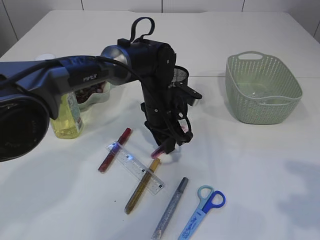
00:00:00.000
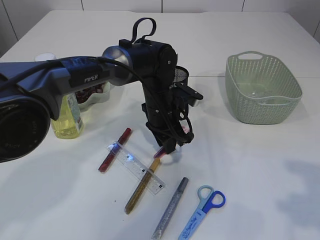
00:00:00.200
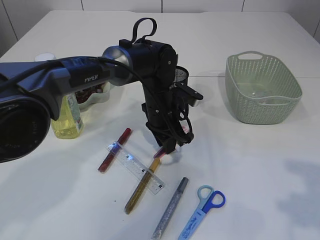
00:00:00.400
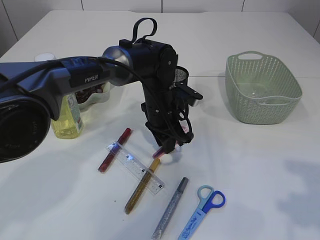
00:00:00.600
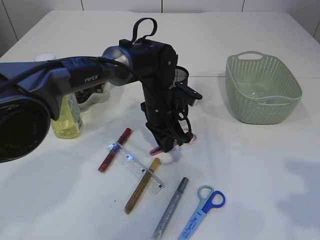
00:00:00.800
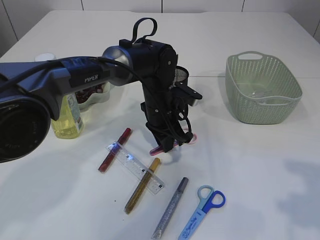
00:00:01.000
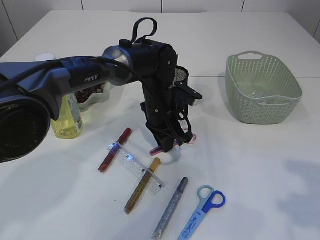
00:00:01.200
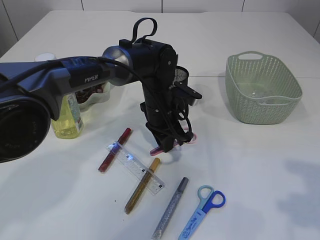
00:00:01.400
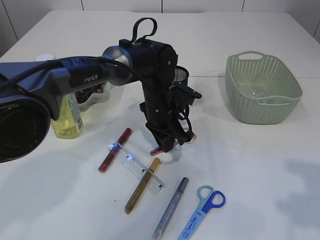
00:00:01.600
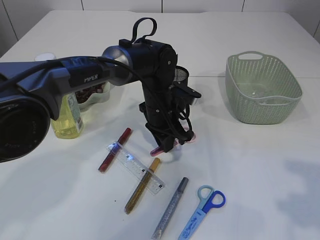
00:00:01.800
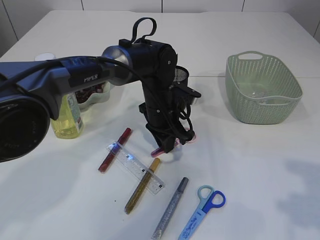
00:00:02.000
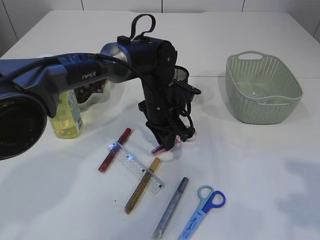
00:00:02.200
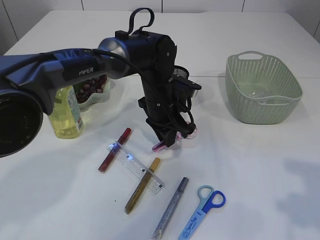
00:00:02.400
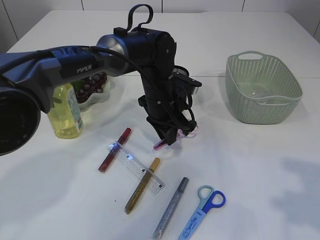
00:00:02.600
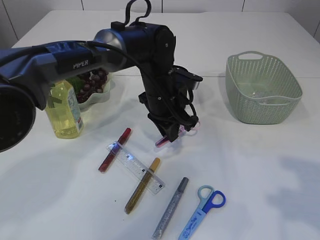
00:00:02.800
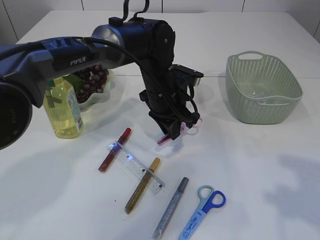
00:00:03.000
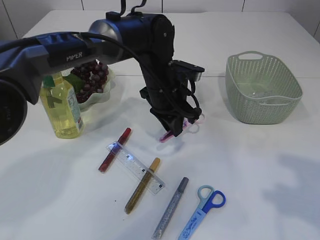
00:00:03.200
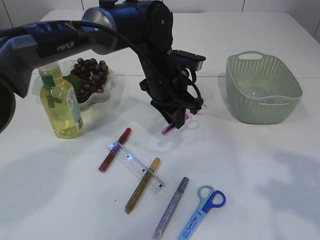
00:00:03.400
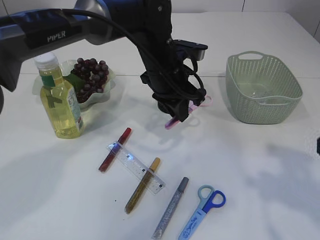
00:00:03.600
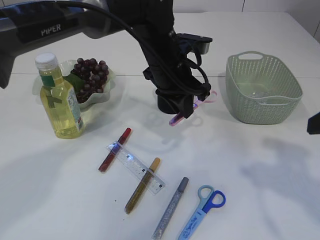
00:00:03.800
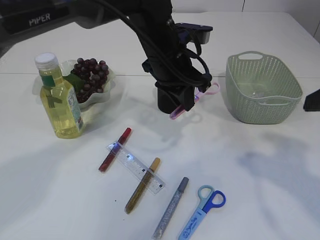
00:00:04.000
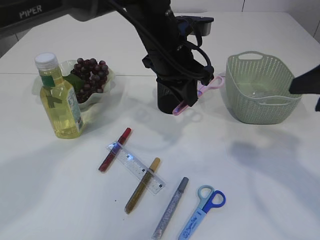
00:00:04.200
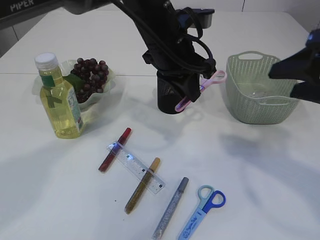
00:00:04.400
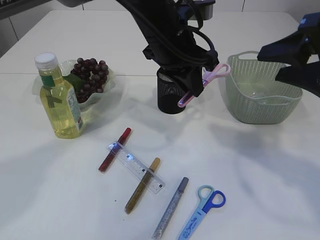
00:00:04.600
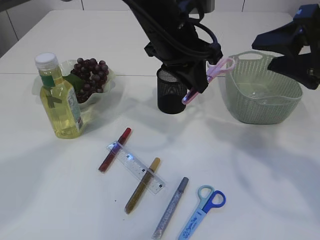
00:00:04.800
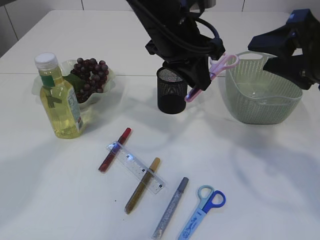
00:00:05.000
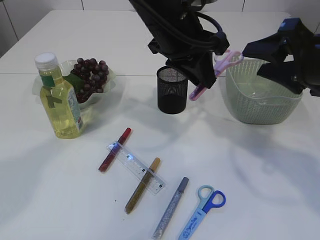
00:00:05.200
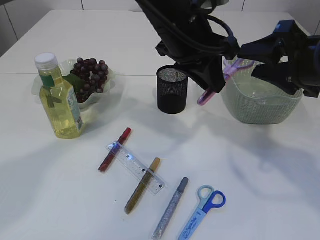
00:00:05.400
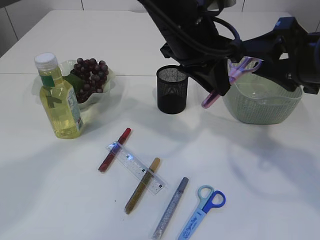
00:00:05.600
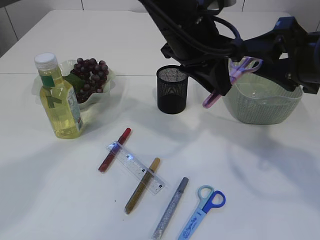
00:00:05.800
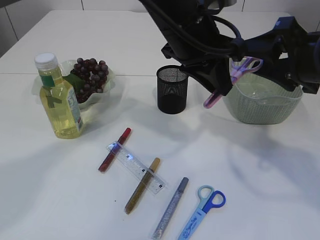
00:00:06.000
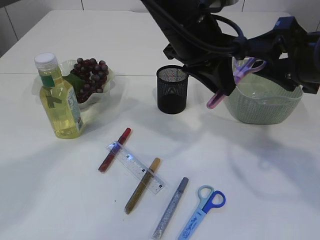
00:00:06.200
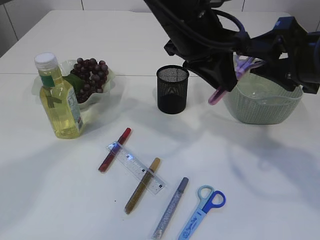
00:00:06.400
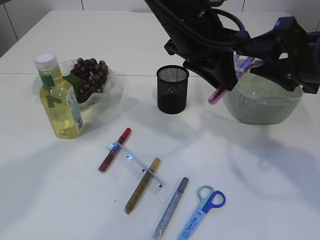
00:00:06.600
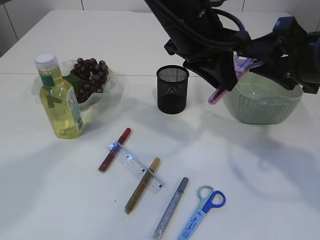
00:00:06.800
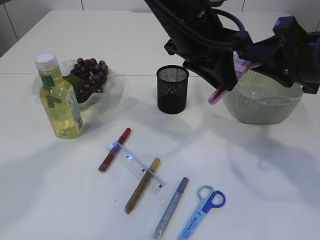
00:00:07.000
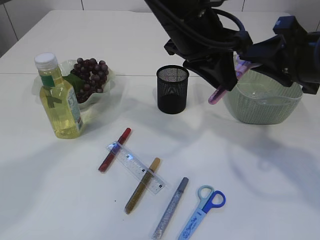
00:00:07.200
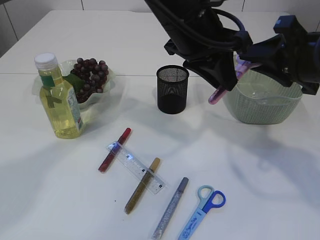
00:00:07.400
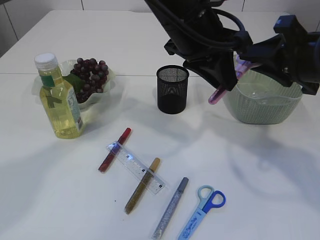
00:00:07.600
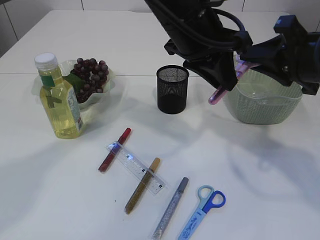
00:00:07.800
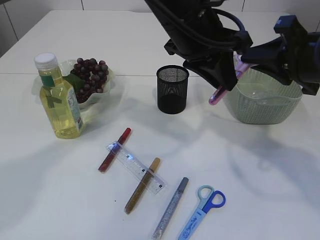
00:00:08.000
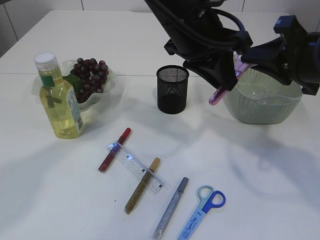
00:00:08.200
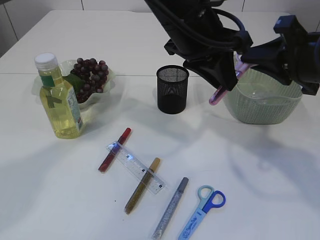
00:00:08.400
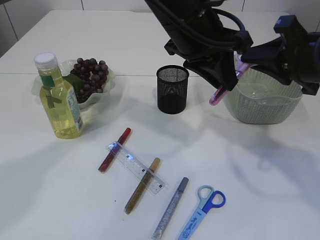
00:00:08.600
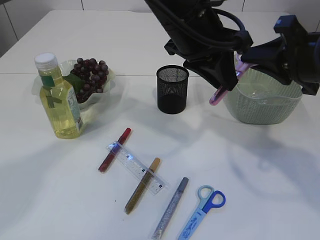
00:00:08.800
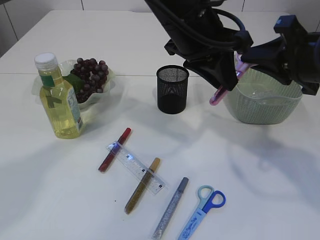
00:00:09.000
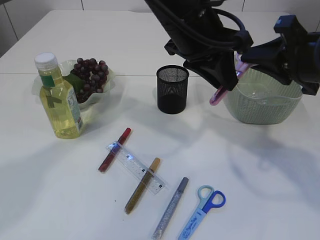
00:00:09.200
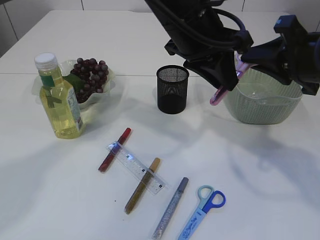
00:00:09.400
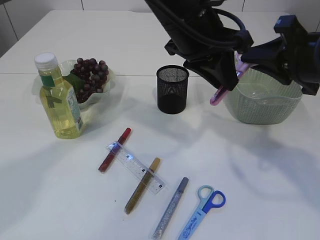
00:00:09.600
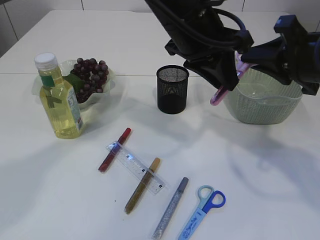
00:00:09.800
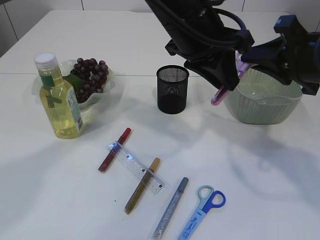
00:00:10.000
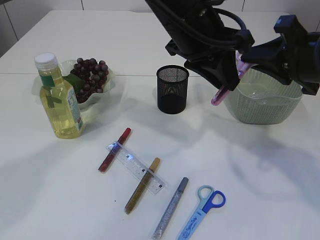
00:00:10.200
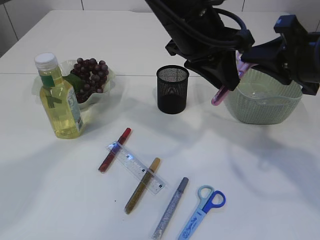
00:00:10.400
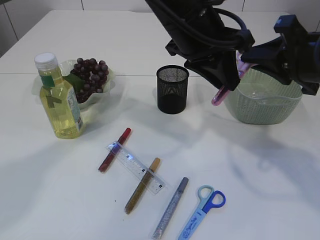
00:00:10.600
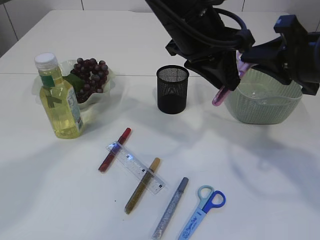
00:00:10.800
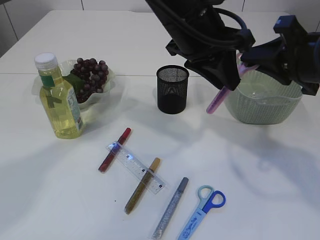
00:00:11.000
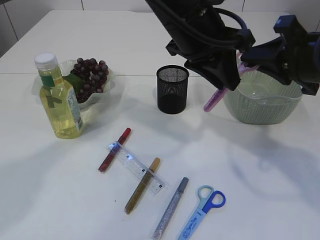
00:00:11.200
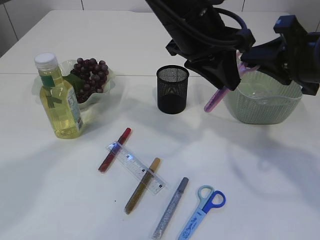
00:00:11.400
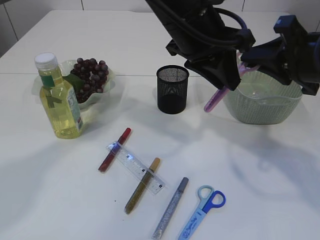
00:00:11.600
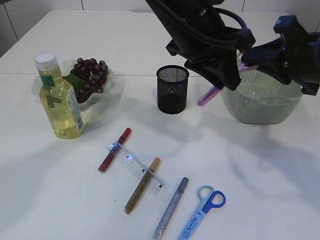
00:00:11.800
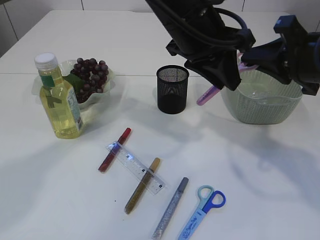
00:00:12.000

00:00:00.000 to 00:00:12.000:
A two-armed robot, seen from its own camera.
Step, 00:00:00.000 to 00:00:03.800: pick up the pink scissors.
00:00:00.000 to 00:00:01.600: Neither gripper changes place.
00:00:01.600 to 00:00:03.000: There are only small adjustments of the grippers.
00:00:03.000 to 00:00:04.400: The left gripper shifts about 10 cm upward. The right gripper is displaced forward by about 10 cm.
00:00:04.400 to 00:00:06.000: The left gripper changes place by about 5 cm. Meanwhile the right gripper shifts approximately 5 cm forward.
00:00:06.000 to 00:00:07.600: The right gripper closes up.
00:00:07.600 to 00:00:12.000: The two grippers keep their place.

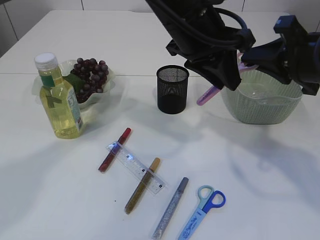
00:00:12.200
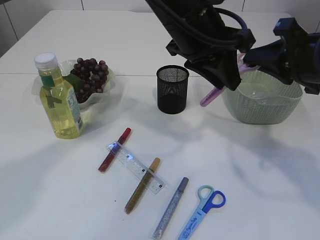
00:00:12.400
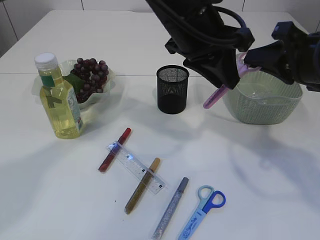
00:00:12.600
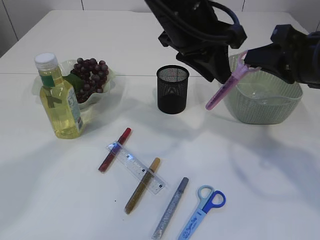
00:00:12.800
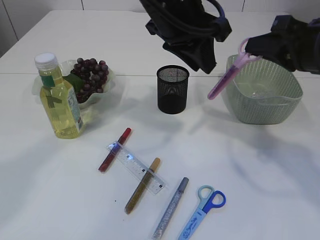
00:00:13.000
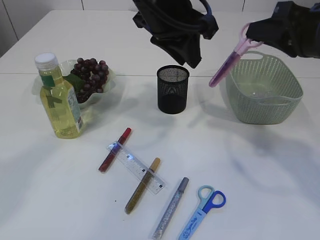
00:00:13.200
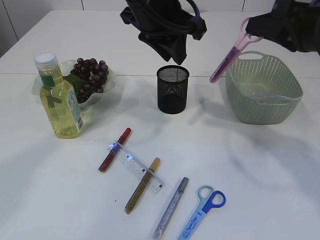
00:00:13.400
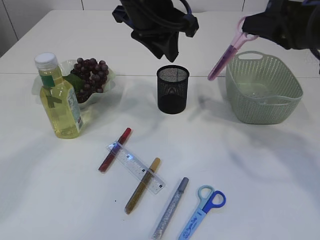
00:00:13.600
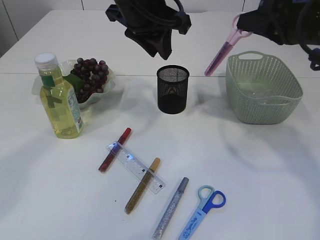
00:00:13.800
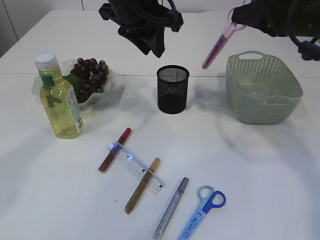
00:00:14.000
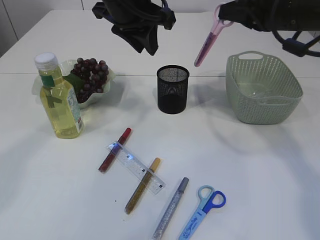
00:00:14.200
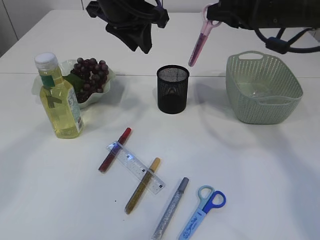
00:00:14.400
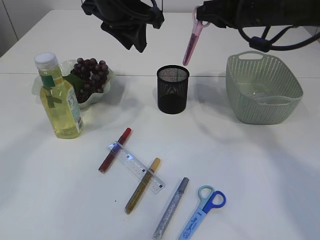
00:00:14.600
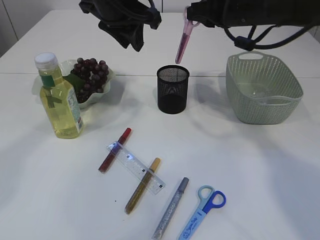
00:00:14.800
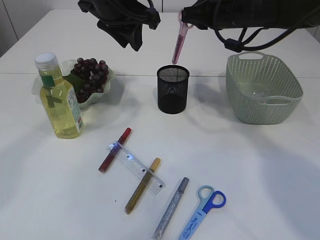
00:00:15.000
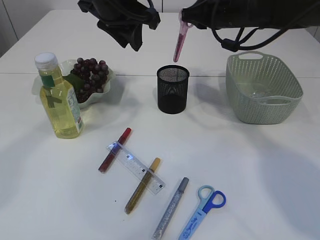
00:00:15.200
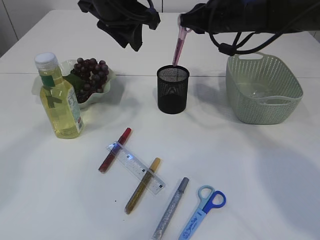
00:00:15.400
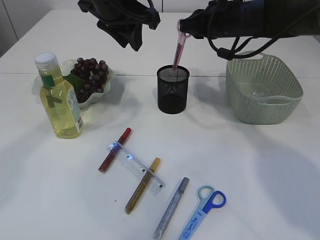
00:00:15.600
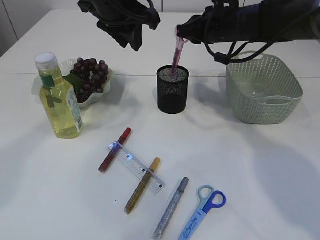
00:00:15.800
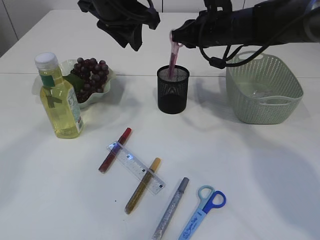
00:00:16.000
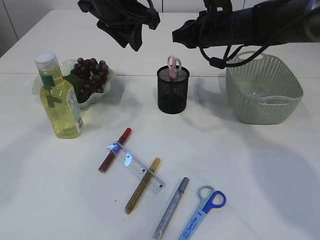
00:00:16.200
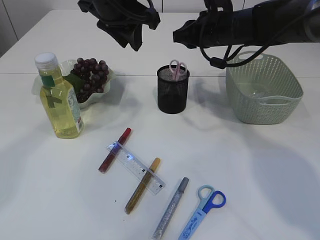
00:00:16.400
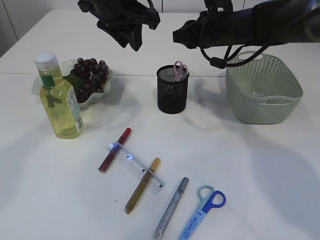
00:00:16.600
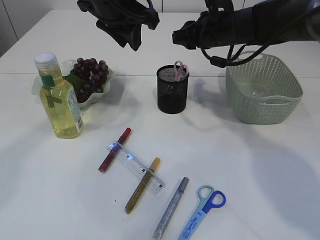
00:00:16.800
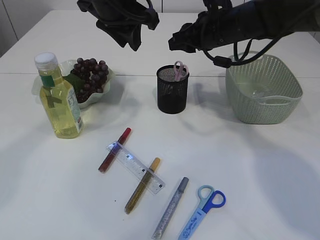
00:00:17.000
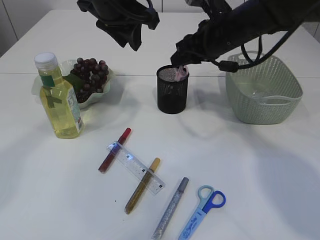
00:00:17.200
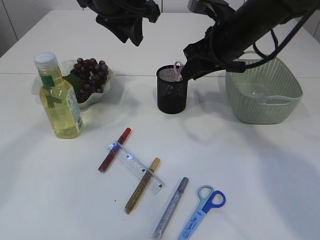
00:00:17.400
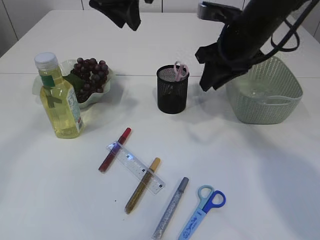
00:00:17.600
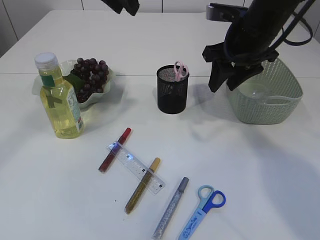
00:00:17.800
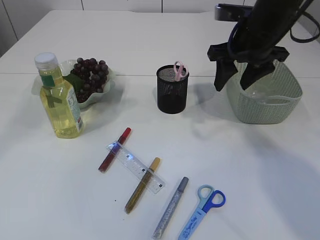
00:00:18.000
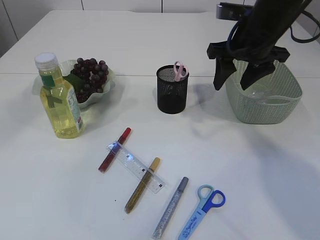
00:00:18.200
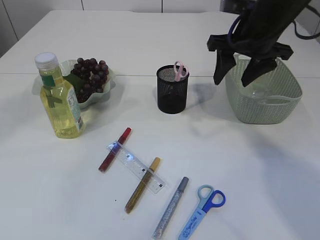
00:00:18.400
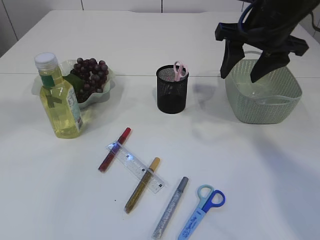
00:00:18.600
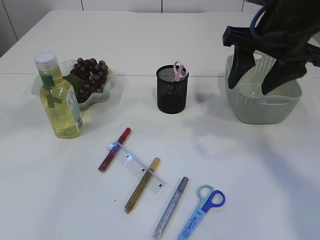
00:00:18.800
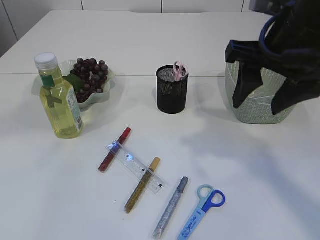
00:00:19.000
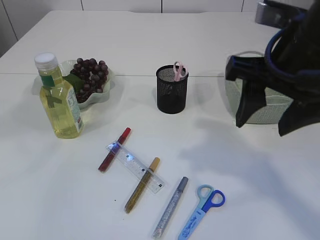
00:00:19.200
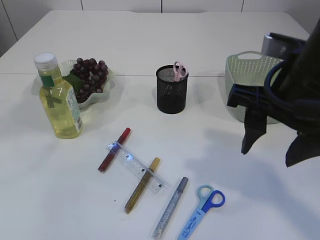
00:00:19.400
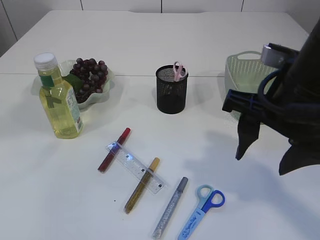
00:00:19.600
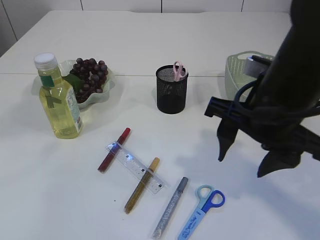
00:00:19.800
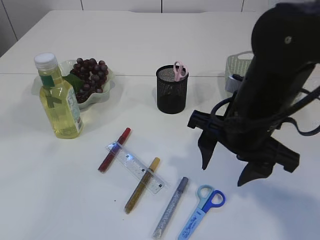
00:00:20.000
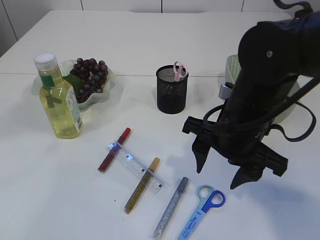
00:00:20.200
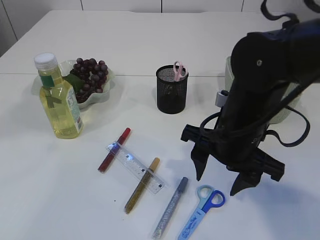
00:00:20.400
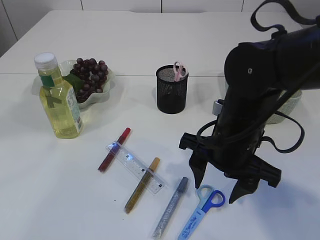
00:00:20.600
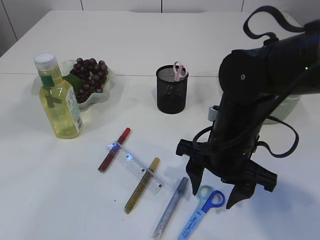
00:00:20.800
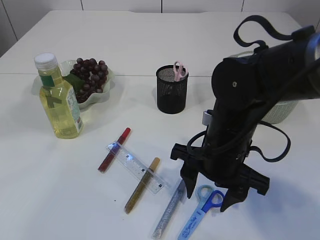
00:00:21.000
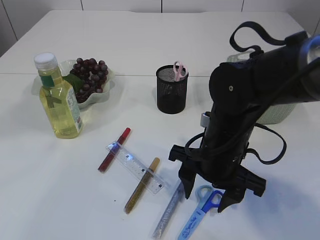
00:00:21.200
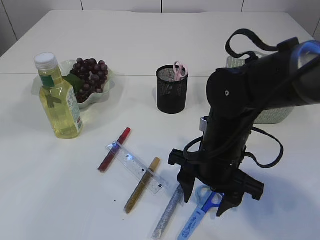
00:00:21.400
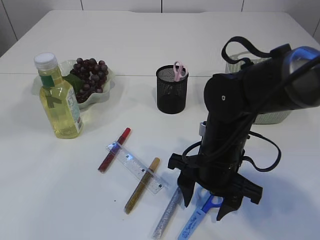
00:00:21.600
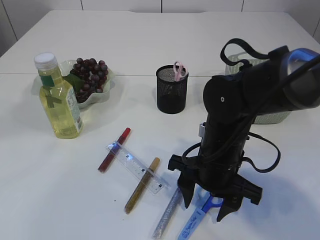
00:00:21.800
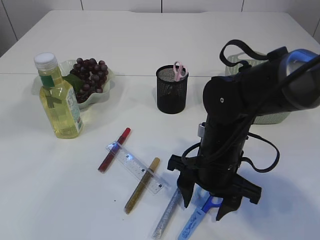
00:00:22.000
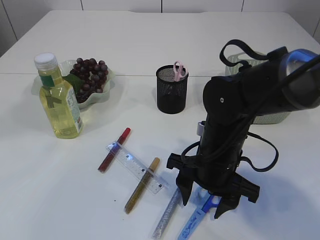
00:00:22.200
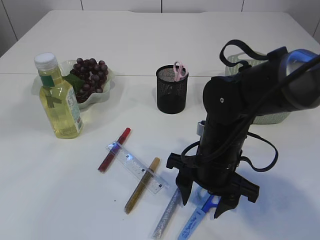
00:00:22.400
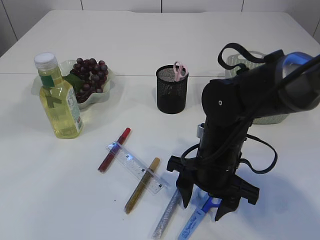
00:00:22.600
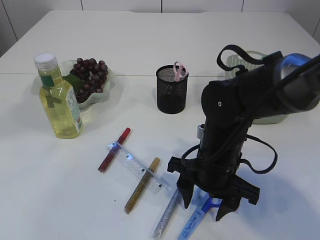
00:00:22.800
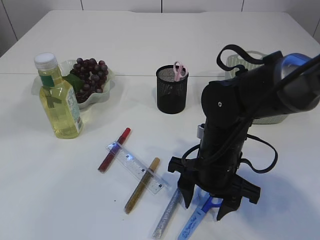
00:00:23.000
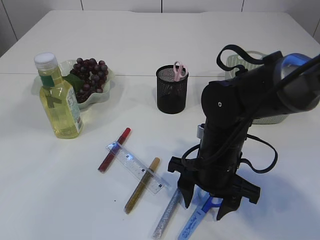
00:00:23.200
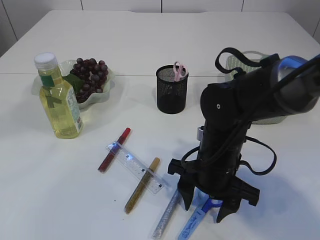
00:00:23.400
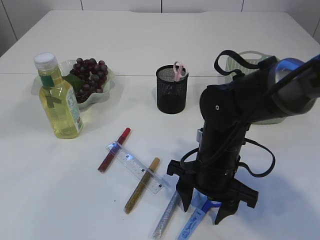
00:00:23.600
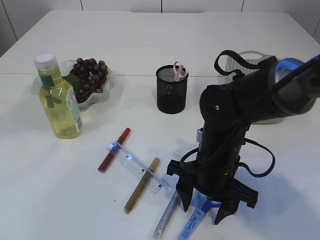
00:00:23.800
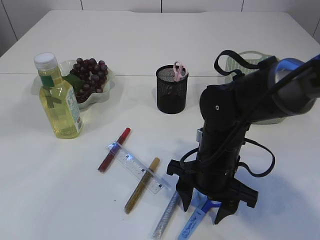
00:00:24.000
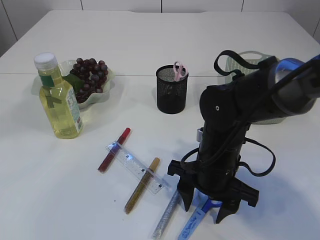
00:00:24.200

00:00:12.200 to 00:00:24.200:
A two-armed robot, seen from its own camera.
Step, 00:00:13.600 to 00:00:17.600: Place the pink scissors into the pen holder.
00:00:12.200 to 00:00:13.800: The right gripper ends up about 5 cm from where it was, while the left gripper heads to the left, covering about 5 cm.
00:00:13.800 to 00:00:15.200: The right gripper is displaced forward and to the left by approximately 15 cm.
00:00:15.200 to 00:00:16.600: There are only small adjustments of the grippers.
00:00:16.600 to 00:00:18.200: The right gripper moves backward, approximately 5 cm, and opens its fingers. The left gripper moves upward and backward, approximately 15 cm.
00:00:18.200 to 00:00:19.800: The right gripper travels backward by approximately 15 cm. Meanwhile the left gripper moves backward and to the left, some 10 cm.
00:00:19.800 to 00:00:21.200: The right gripper shifts roughly 10 cm downward.
00:00:21.200 to 00:00:22.600: The grippers stay close to where they were, moving slightly.
00:00:22.600 to 00:00:24.200: Both grippers stay put.
